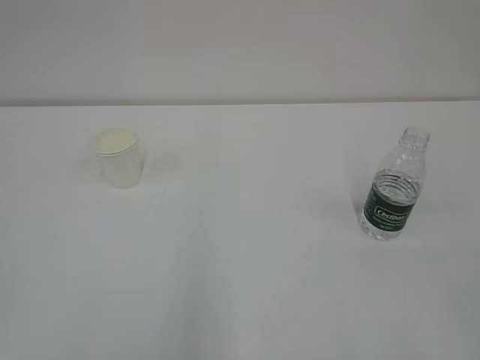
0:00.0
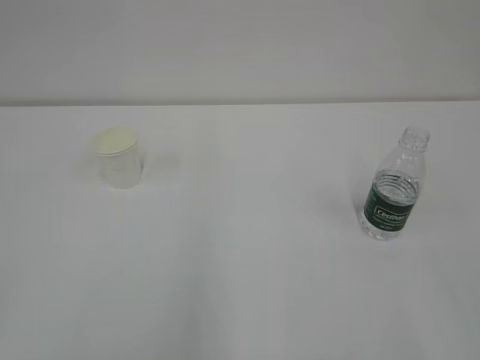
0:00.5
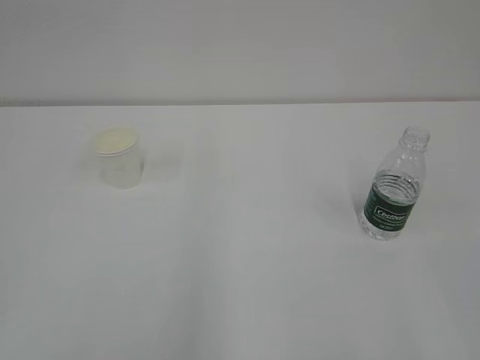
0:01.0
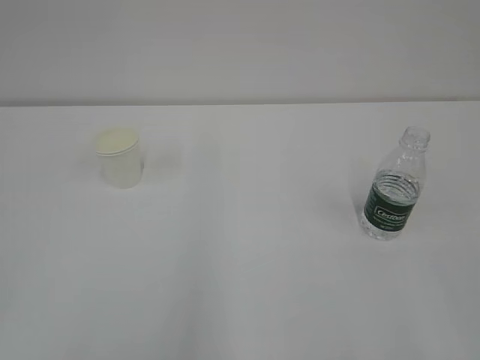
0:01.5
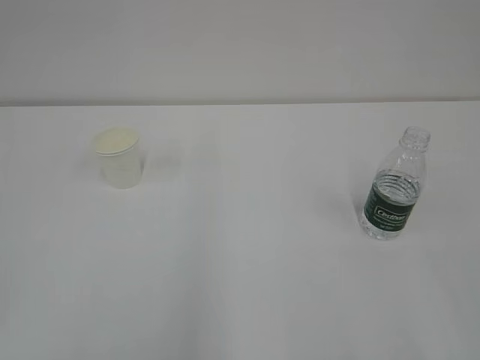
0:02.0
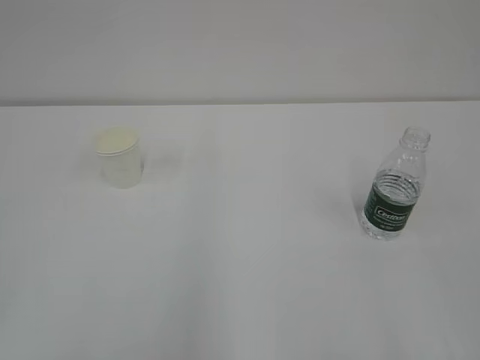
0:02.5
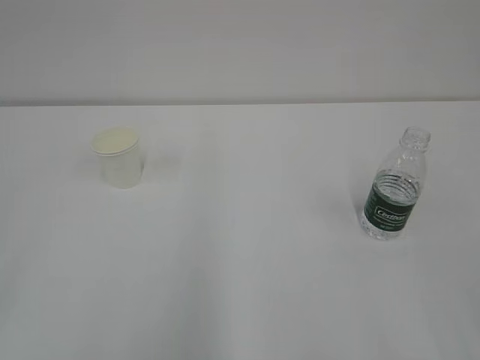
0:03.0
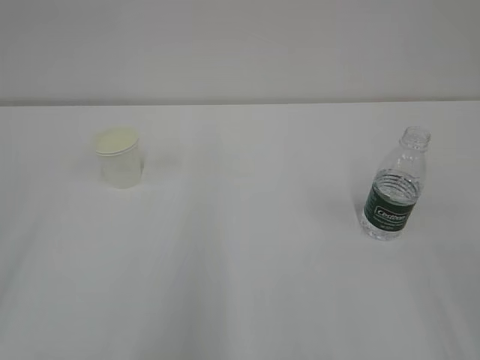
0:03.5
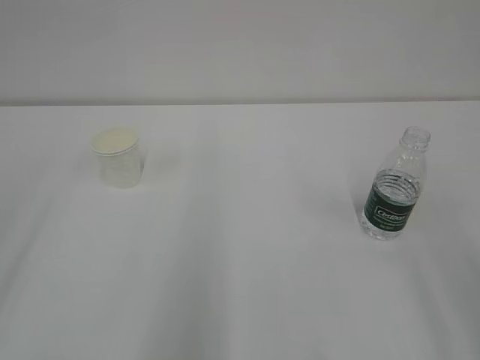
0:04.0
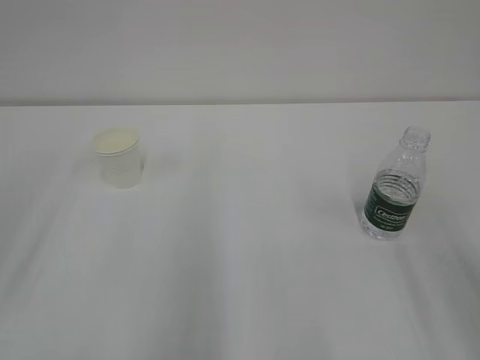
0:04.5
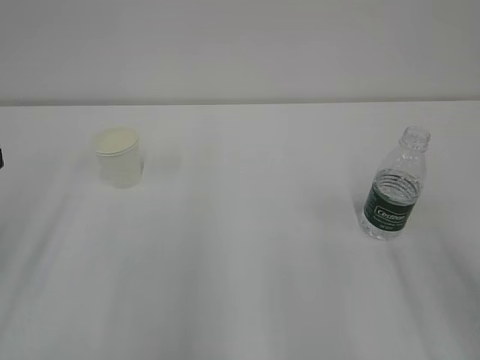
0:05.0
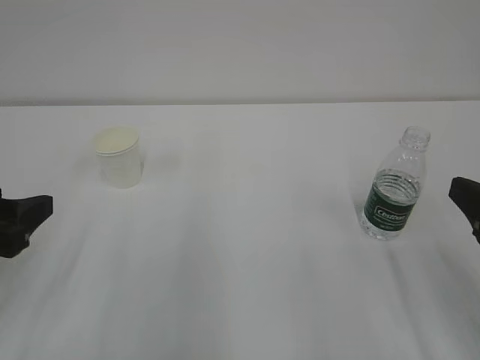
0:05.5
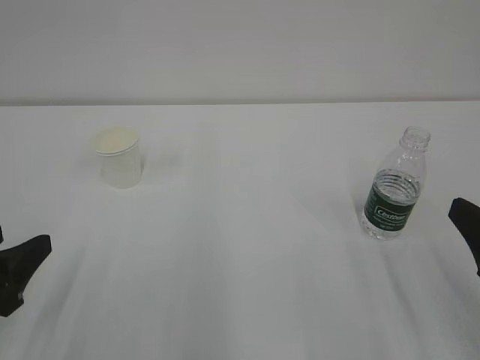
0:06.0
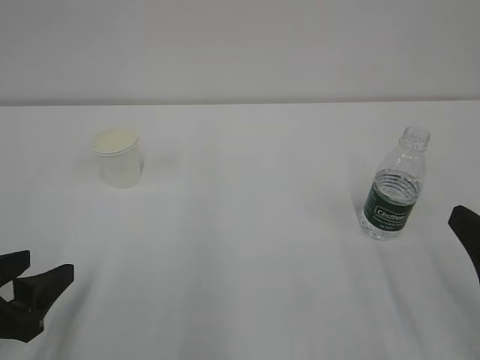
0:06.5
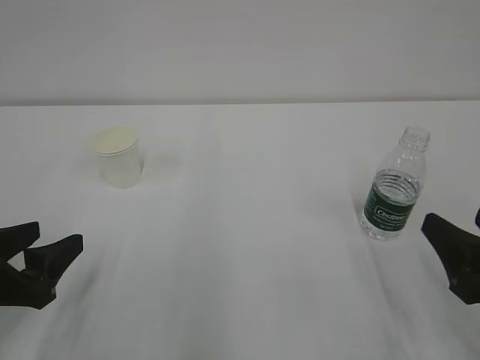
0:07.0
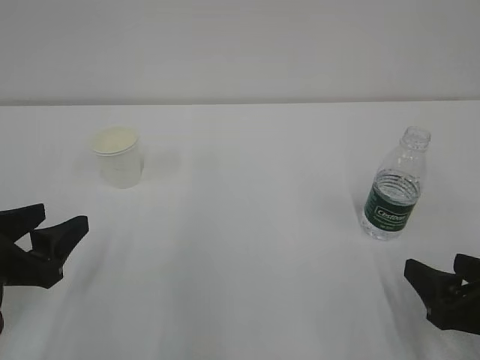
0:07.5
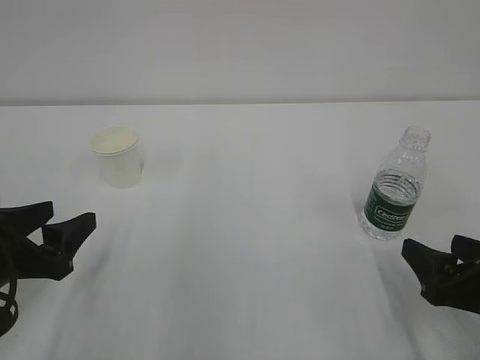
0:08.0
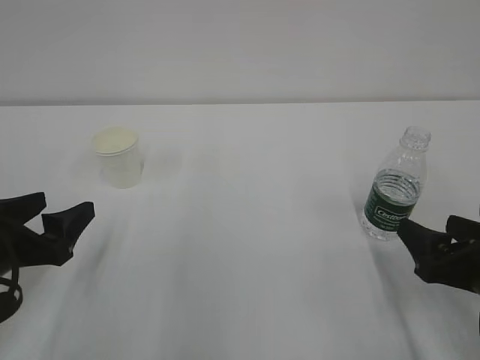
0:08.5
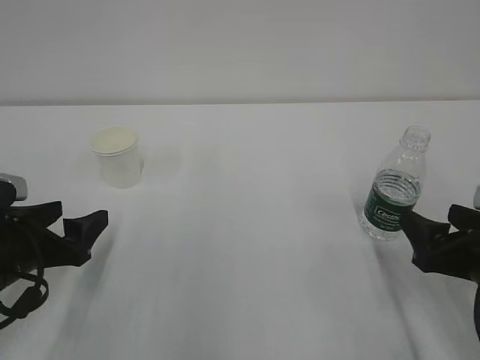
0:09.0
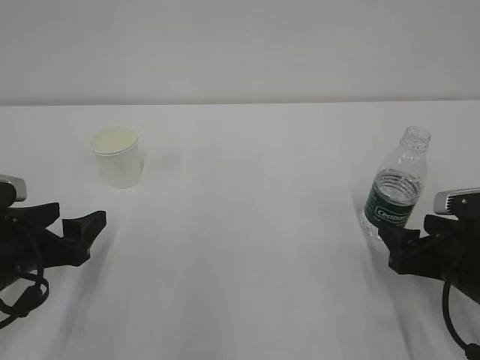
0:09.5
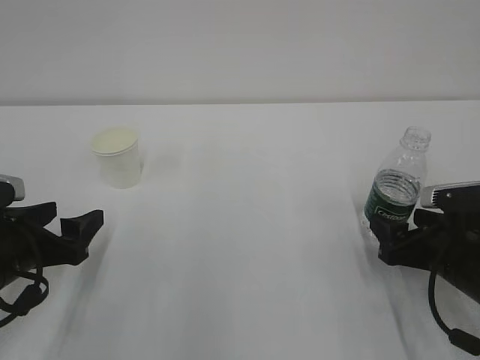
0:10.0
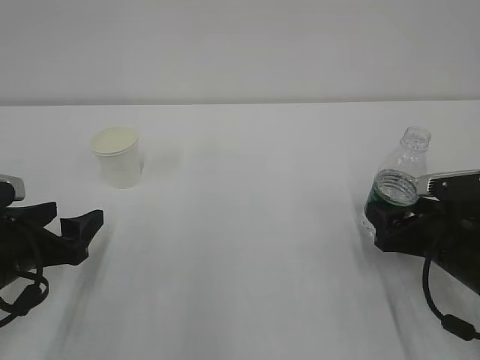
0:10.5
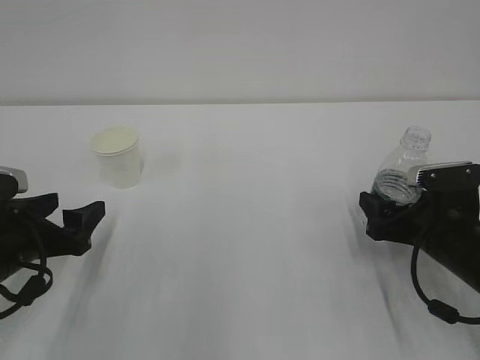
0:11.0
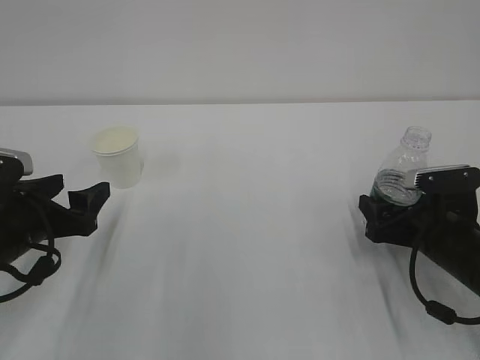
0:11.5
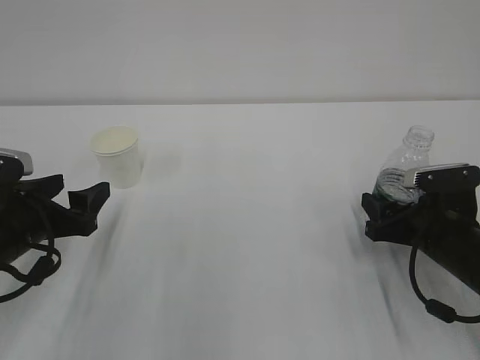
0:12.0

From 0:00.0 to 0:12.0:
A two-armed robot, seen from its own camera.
From 0:04.0 to 0:06.0: The right gripper heads downward and forward, covering approximately 15 cm; the left gripper travels downward by some 15 cm.
From 0:06.0 to 0:08.0: The left gripper heads forward, covering about 5 cm; the right gripper goes roughly 5 cm downward.
From 0:08.0 to 0:10.0: The right gripper goes roughly 5 cm forward.
From 0:10.0 to 0:12.0: The right gripper closes up.

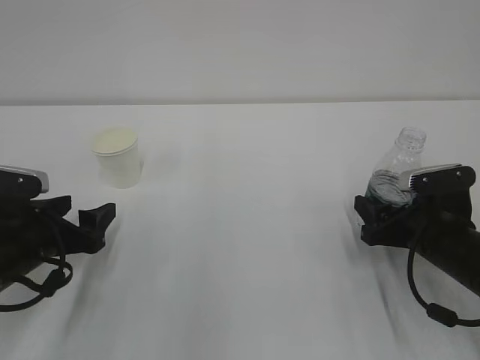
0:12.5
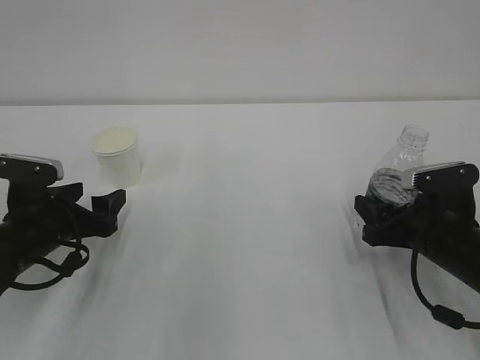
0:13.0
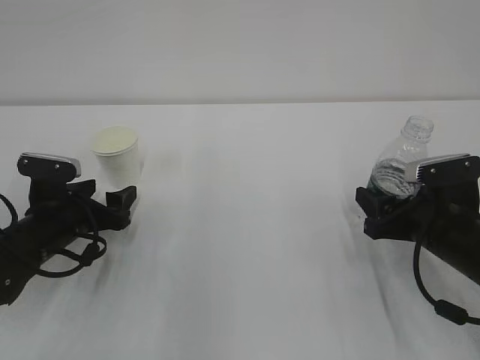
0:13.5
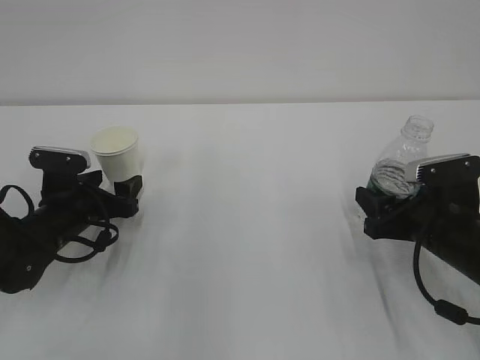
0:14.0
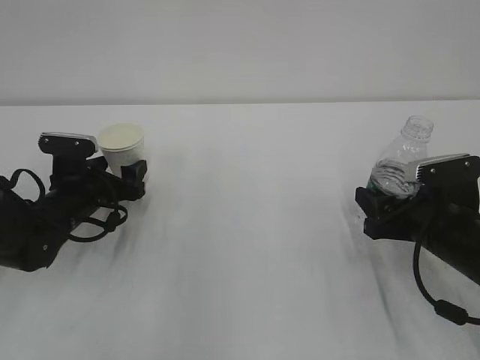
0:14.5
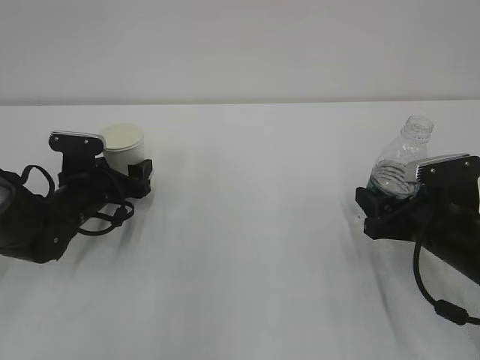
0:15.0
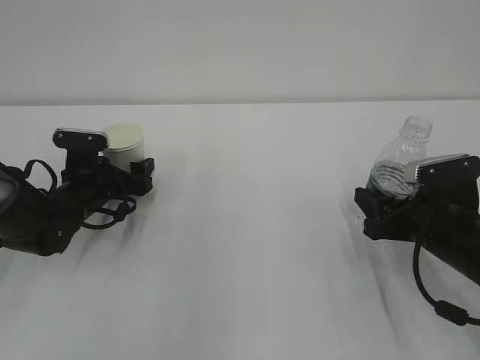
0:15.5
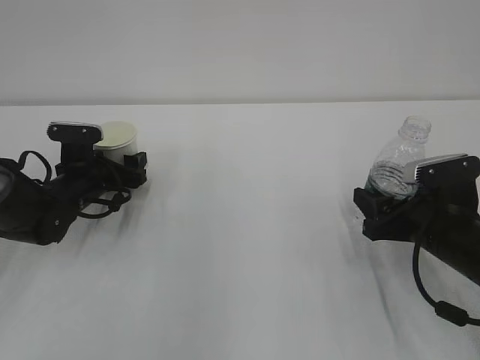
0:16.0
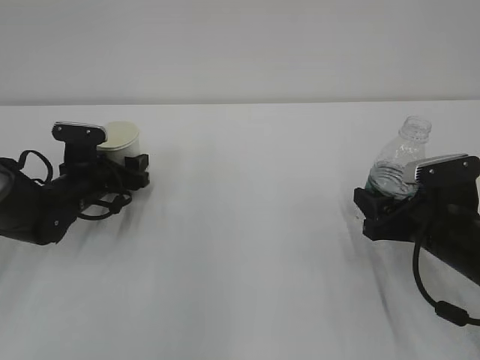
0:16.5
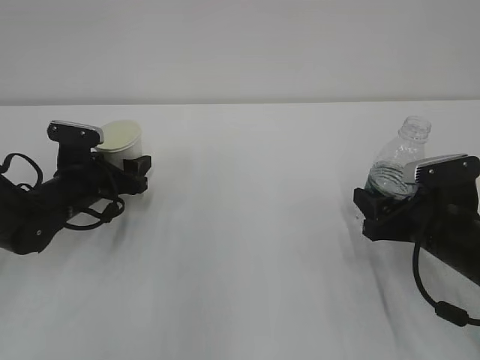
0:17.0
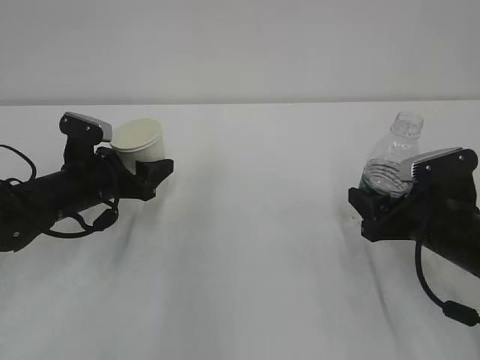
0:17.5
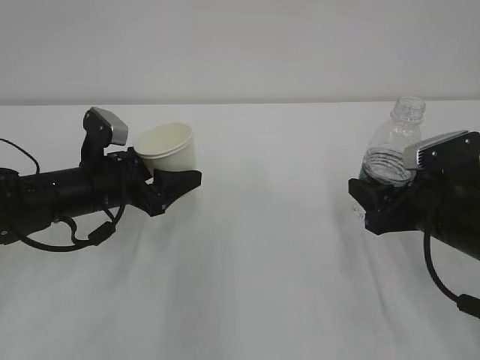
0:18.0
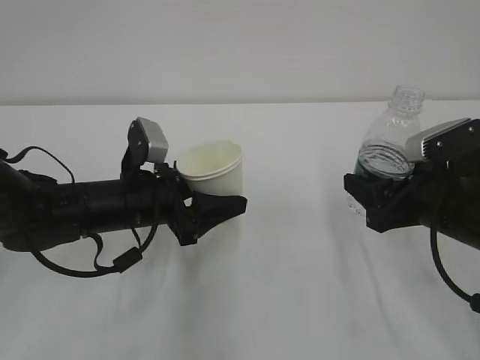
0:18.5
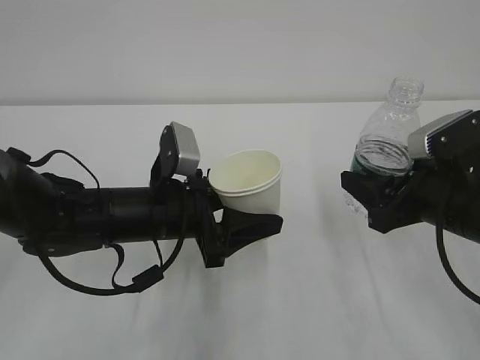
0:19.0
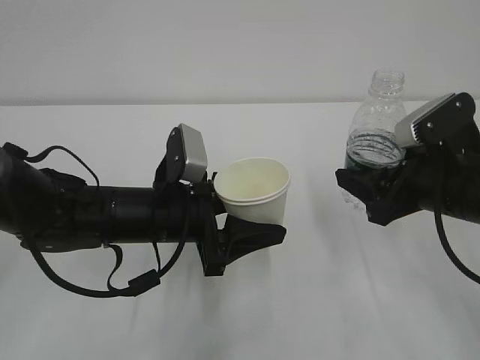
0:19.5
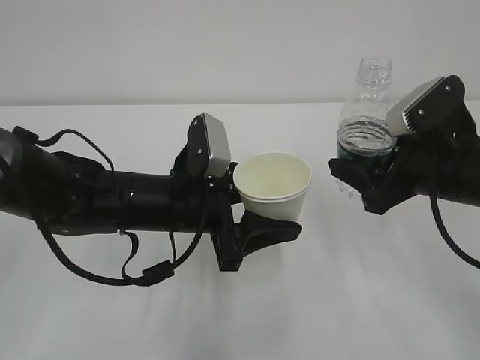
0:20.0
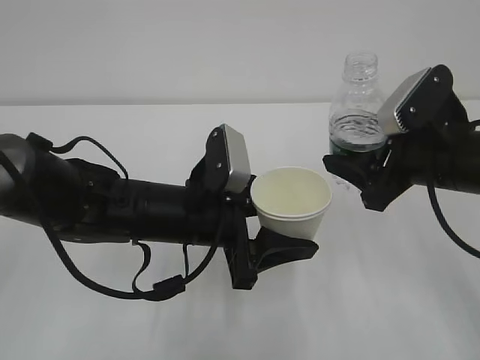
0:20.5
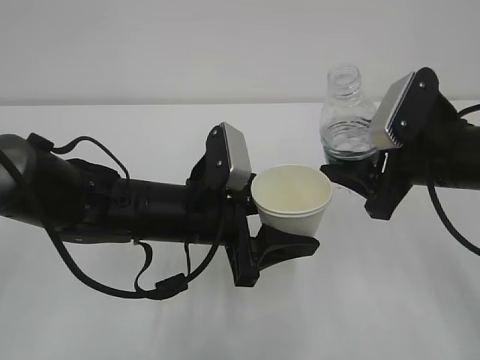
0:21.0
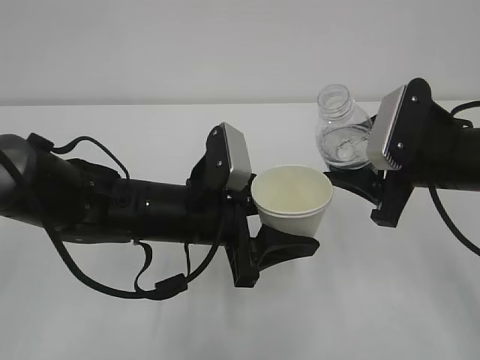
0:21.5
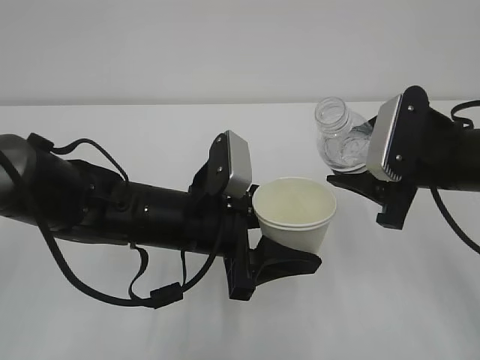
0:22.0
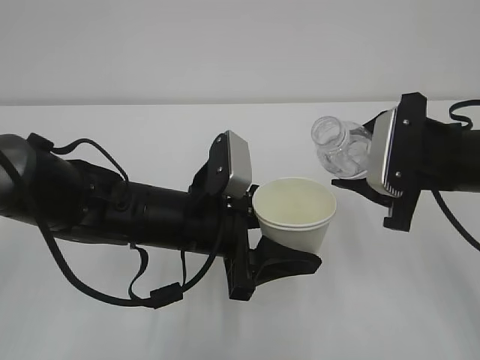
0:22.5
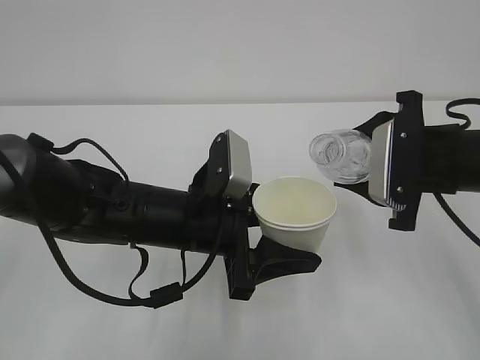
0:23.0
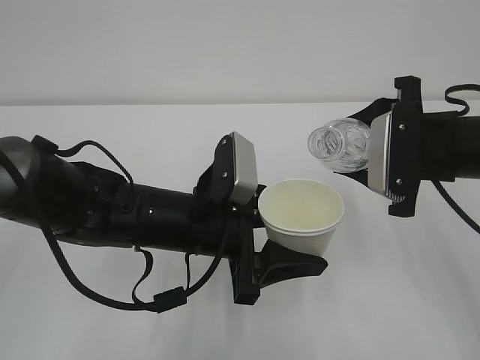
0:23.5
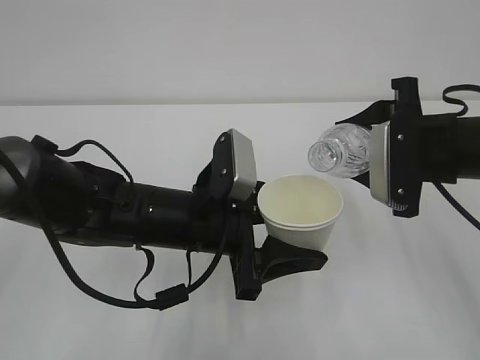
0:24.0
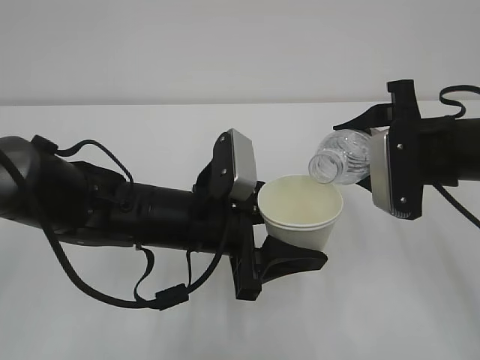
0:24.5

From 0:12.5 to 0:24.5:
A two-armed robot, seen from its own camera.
From 0:12.5 to 0:14.5: The left gripper travels forward by roughly 10 cm.
From 0:14.5 to 0:16.5: The grippers move only a little.
From 0:16.5 to 0:18.5: The right gripper travels upward by about 5 cm, while the left gripper goes some 15 cm to the right, backward and upward.
From 0:18.5 to 0:20.5: The right gripper travels upward by roughly 5 cm, while the left gripper moves to the right, approximately 10 cm.

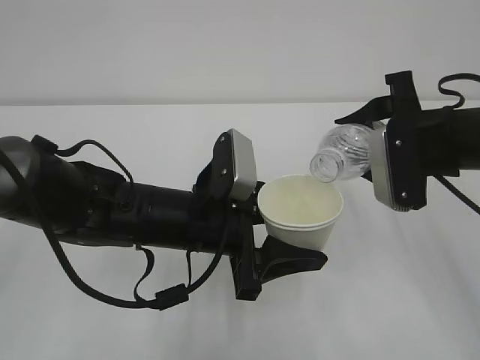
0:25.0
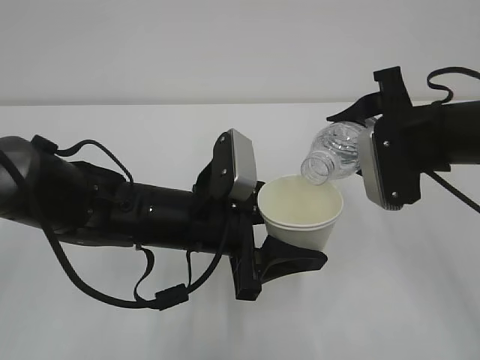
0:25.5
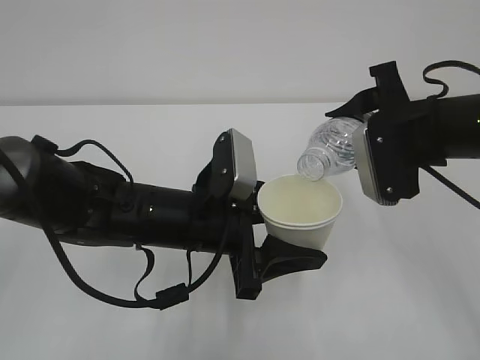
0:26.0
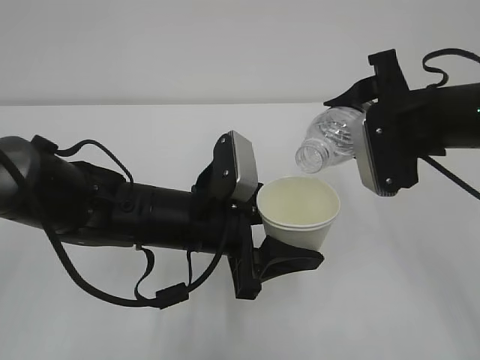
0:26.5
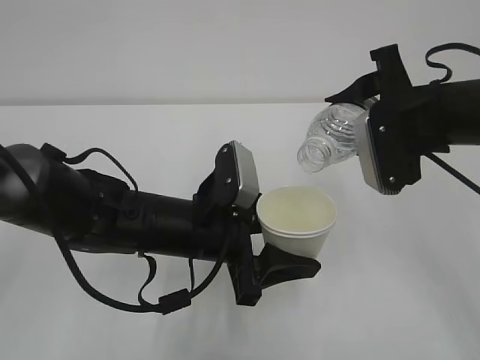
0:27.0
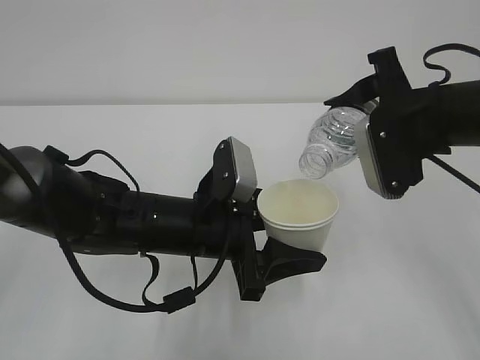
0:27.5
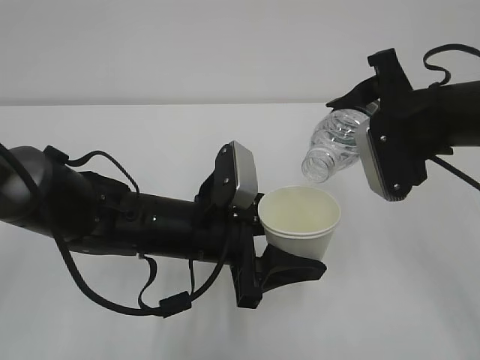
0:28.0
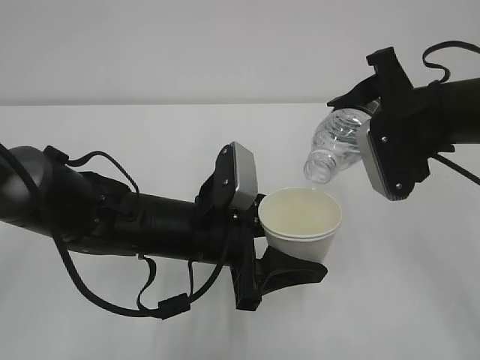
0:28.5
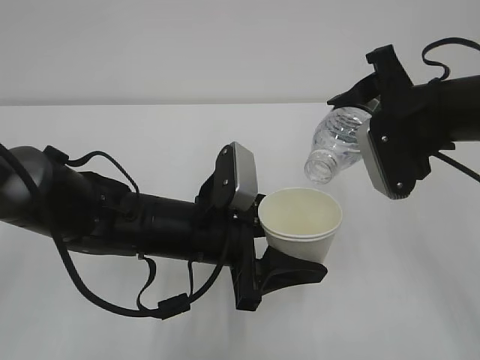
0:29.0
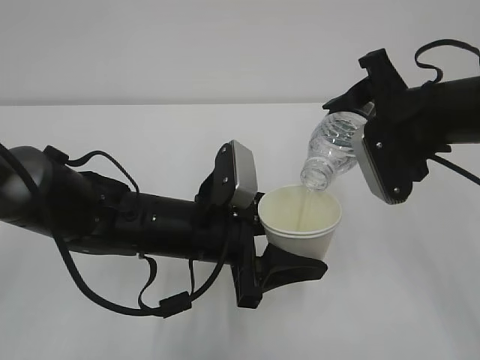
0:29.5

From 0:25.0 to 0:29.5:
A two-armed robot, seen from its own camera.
From 0:25.0 to 0:29.5: There are only small adjustments of the grippers.
